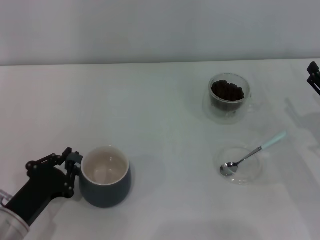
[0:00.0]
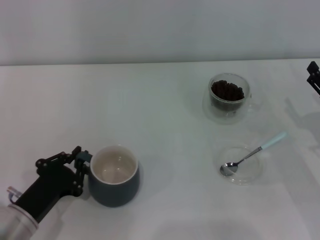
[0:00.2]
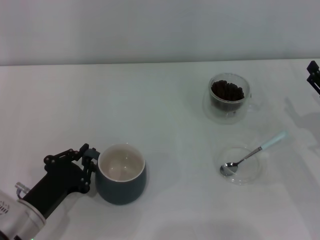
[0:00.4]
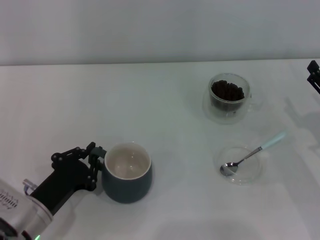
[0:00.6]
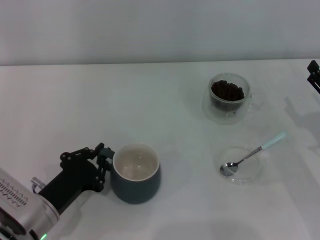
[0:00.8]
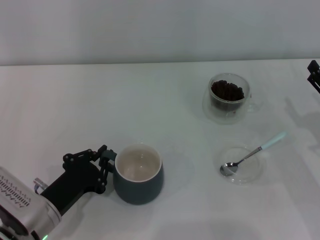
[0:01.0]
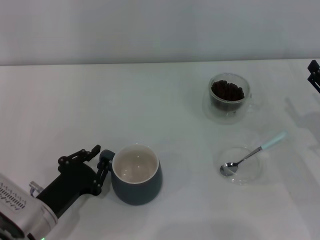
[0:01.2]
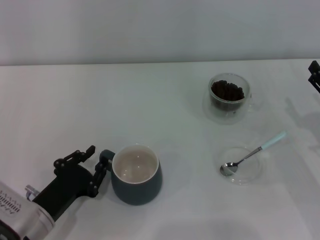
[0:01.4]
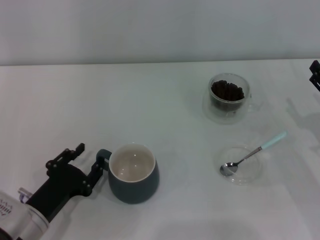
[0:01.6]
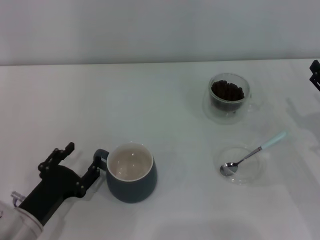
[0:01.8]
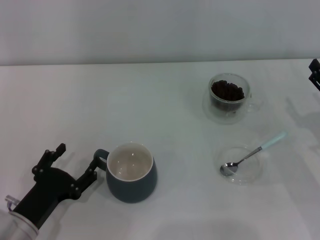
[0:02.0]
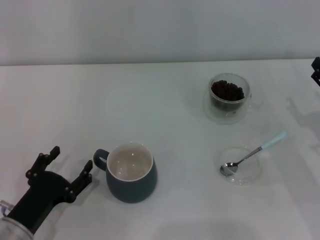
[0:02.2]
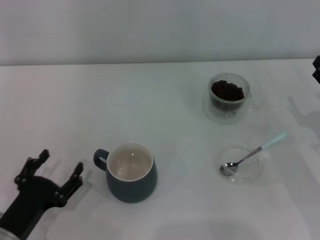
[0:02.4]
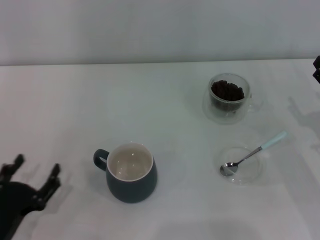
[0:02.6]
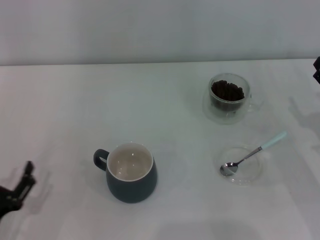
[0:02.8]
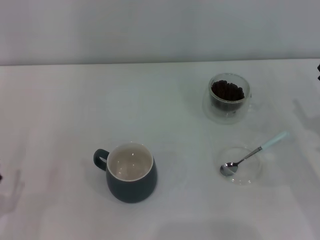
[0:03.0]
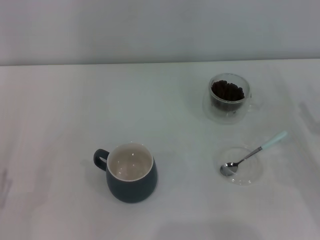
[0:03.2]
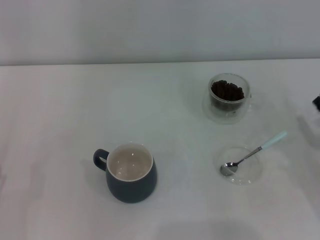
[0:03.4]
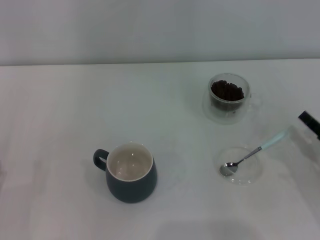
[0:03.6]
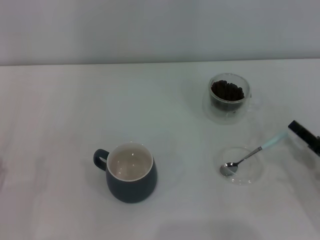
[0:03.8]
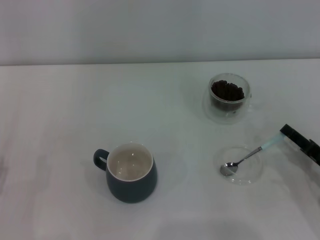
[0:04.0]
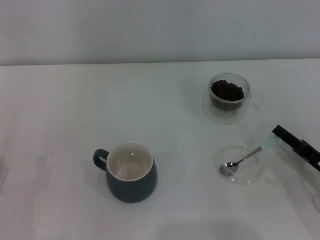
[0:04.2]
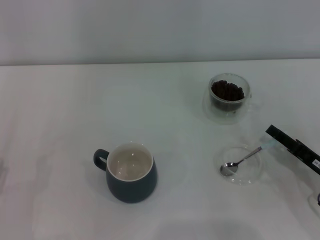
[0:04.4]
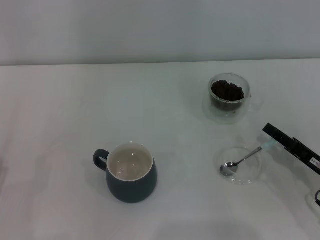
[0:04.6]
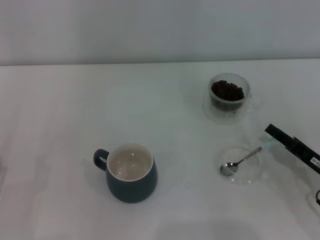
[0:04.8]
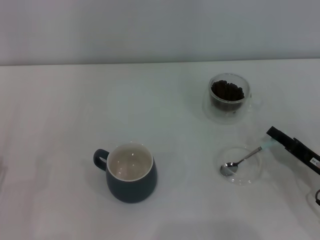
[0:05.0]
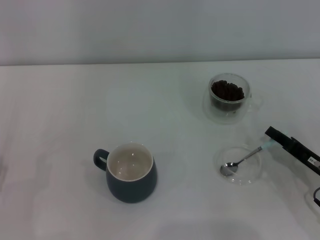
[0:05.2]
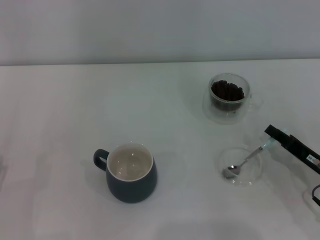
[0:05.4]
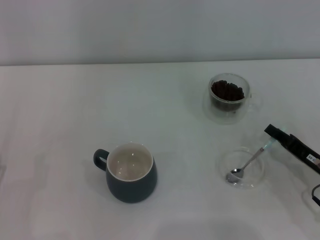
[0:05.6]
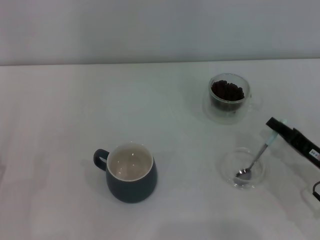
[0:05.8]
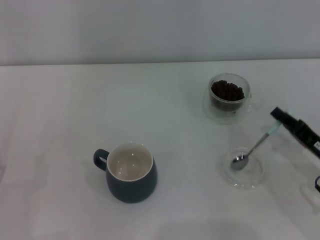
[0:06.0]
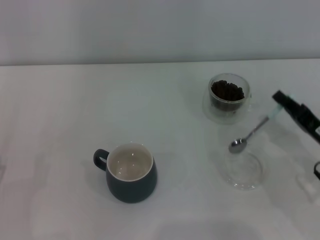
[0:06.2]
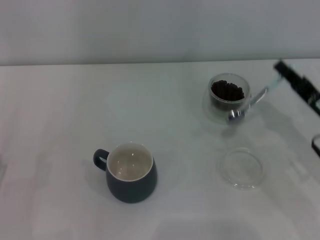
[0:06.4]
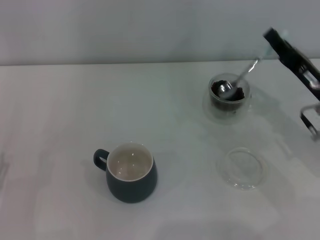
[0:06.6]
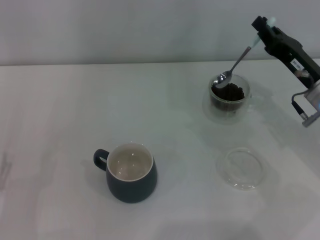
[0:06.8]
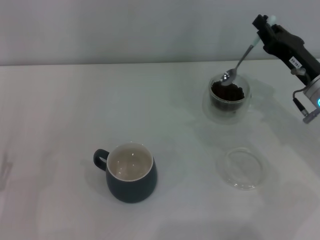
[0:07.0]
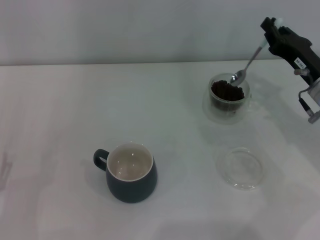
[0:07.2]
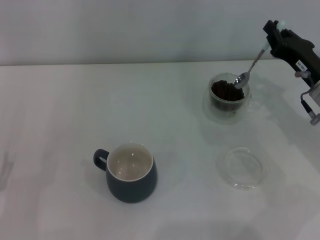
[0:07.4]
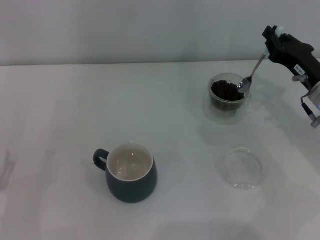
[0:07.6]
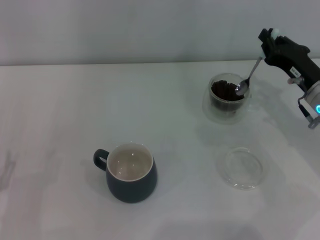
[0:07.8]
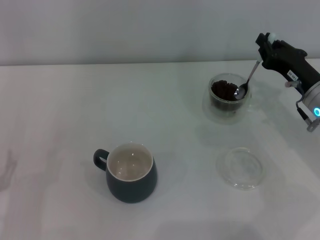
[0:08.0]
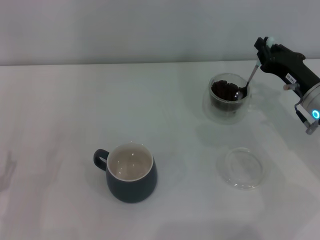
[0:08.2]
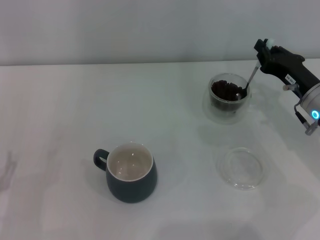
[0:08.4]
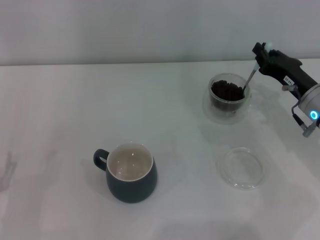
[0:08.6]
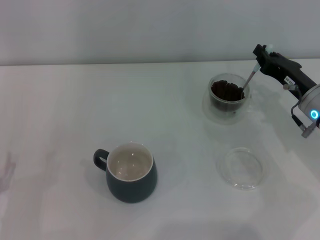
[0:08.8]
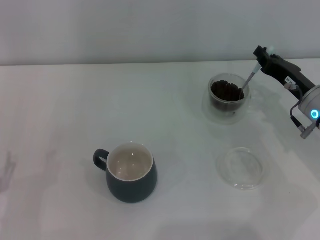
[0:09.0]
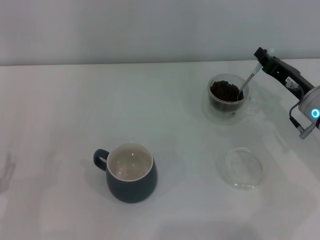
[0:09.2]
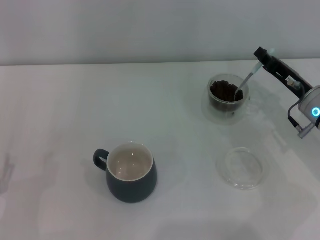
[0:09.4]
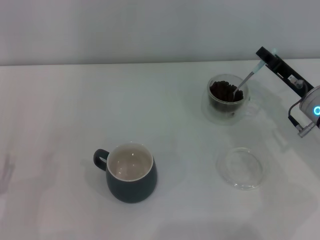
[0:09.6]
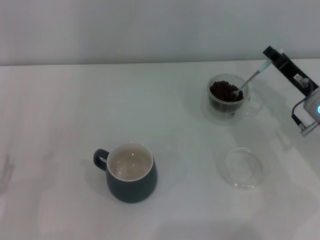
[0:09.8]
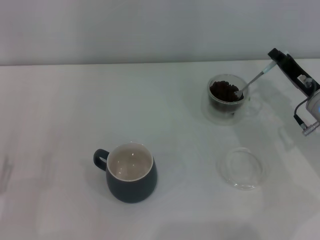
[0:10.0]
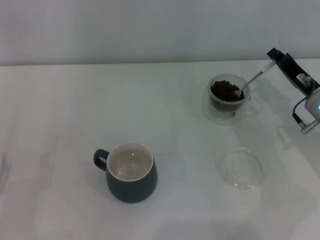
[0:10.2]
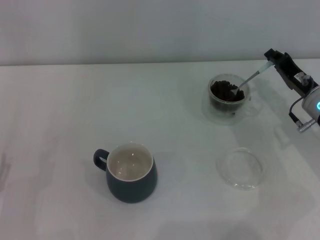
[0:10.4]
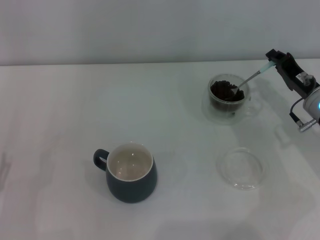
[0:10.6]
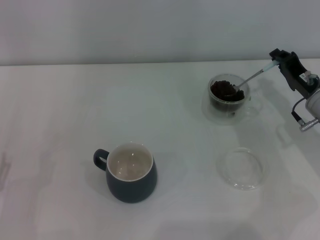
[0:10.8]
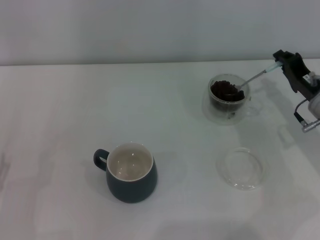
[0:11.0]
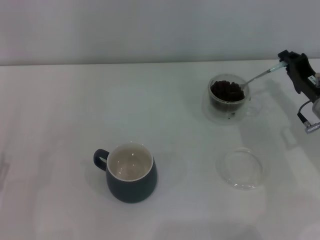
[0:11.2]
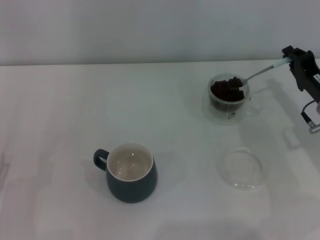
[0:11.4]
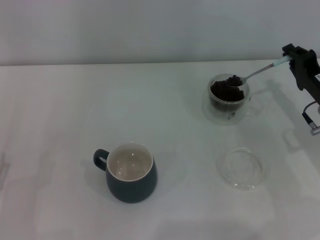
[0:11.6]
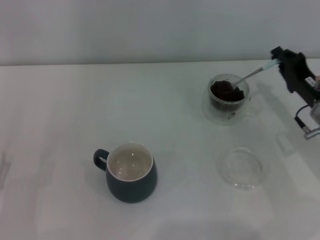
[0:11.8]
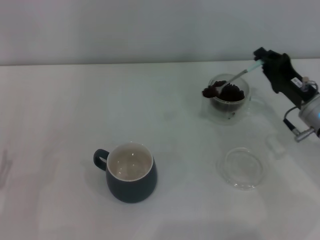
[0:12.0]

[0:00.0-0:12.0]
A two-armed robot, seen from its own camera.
Task of the whole recording: Use a blue spoon to take out the coffee beans from the glass and pour them into the gray cup.
Step, 0:00.0 to 0:02.4: Move the cup to the center of view with the left gripper.
Step, 0:02.6 to 0:06.0: Pick up the spoon with the right gripper.
0:00.0 to 0:01.6: There are only small adjustments of the grippers.
0:01.6 to 0:03.0: The left gripper heads to the left and backward, covering approximately 10 cm, and opens its fingers.
0:03.0 to 0:04.4: The right gripper changes place by roughly 5 cm.
0:04.4 to 0:06.0: The right gripper closes up.
0:06.0 to 0:07.6: The right gripper is displaced forward and upward by roughly 10 cm.
0:07.6 to 0:09.0: The grippers move only a little.
0:10.4 to 0:12.0: There are only small adjustments of the grippers.

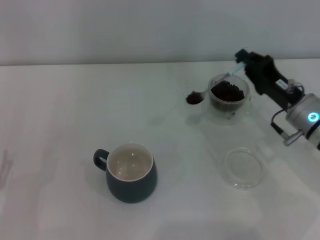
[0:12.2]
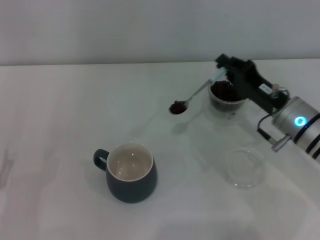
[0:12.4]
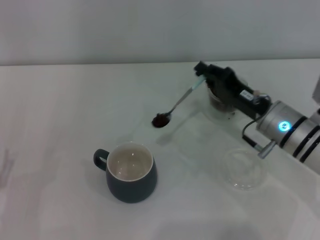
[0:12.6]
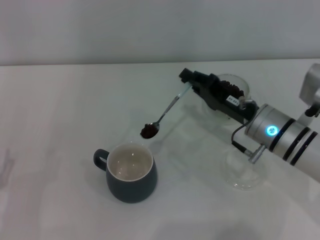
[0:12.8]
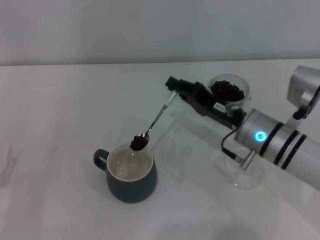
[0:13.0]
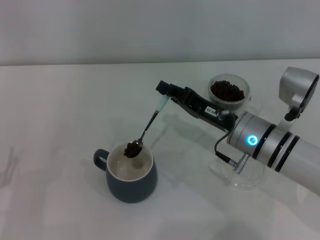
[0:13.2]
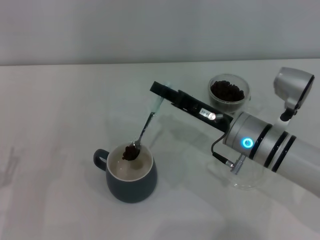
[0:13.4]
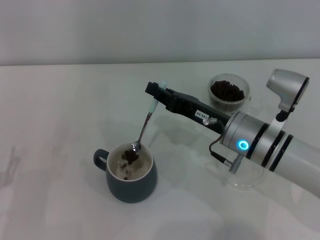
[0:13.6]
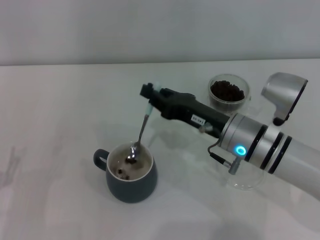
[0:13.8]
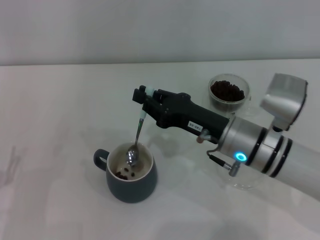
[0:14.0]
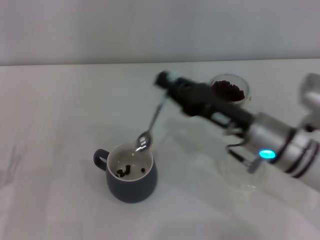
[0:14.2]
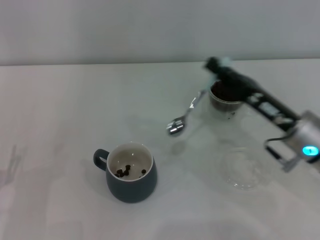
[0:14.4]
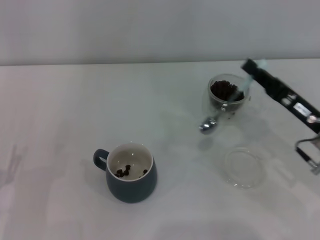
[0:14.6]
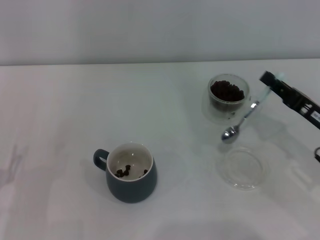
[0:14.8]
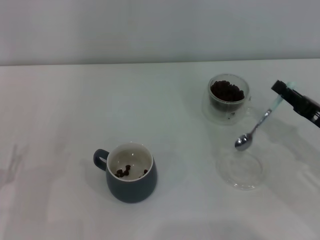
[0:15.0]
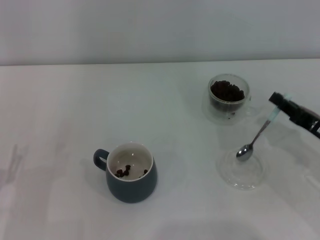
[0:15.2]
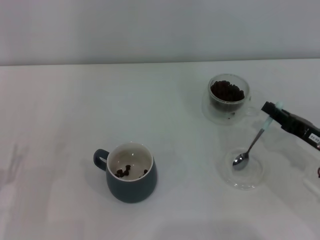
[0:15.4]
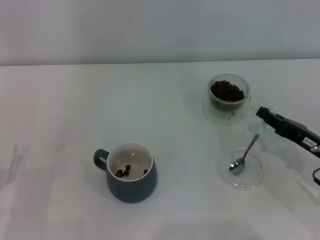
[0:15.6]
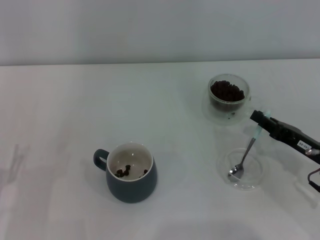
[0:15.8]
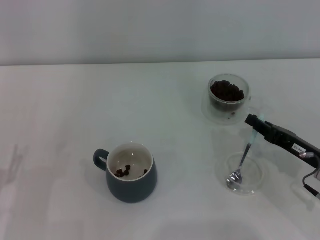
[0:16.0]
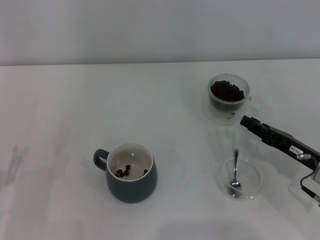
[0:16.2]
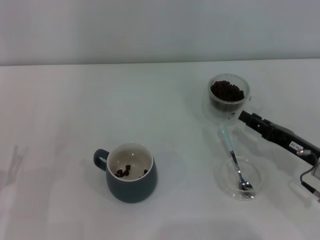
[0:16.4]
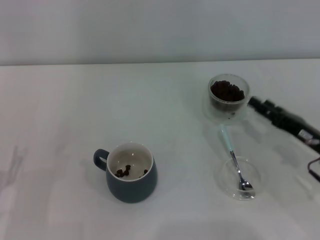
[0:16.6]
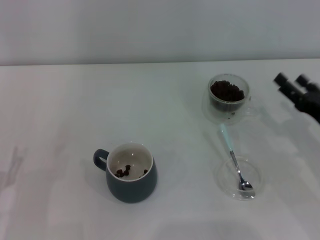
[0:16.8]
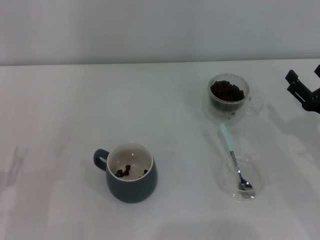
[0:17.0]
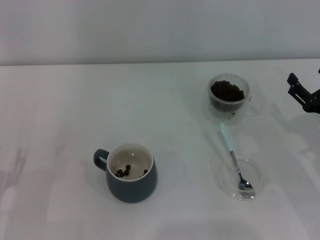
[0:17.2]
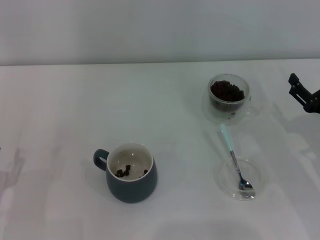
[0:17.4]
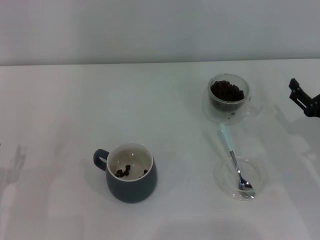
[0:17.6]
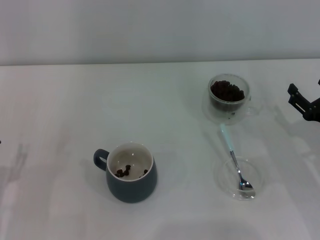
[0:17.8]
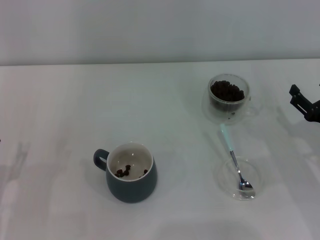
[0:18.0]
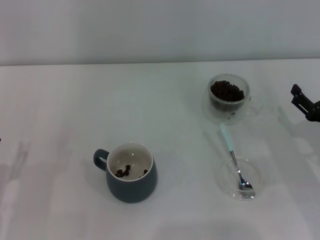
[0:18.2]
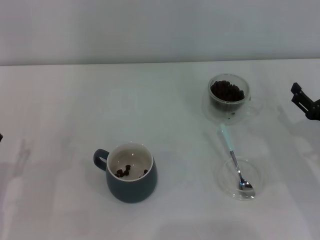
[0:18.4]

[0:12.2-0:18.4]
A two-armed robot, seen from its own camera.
Task of the whole recording: Use a blue spoon to take out the coffee beans from the glass and pour them into the gray cup.
Step, 0:14.2 to 0:16.2: Place the spoon back in its original place with the right gripper.
0:12.2 to 0:13.8: The right gripper goes some 10 cm to the left.
0:13.8 to 0:15.4: The right gripper moves to the right, some 15 cm.
0:15.4 to 0:16.8: The right gripper opens.
